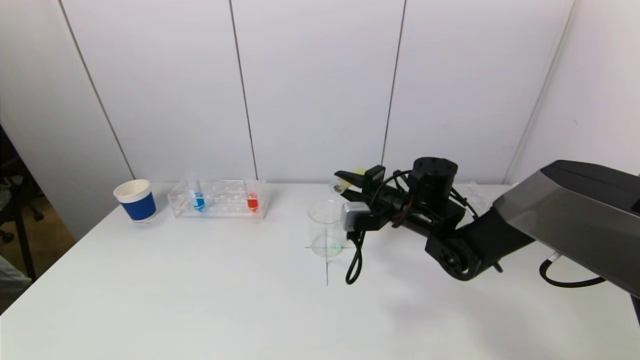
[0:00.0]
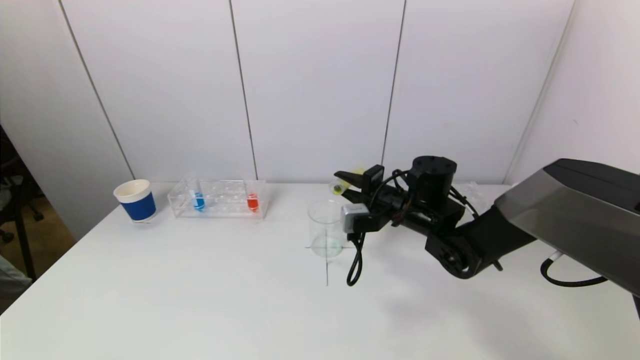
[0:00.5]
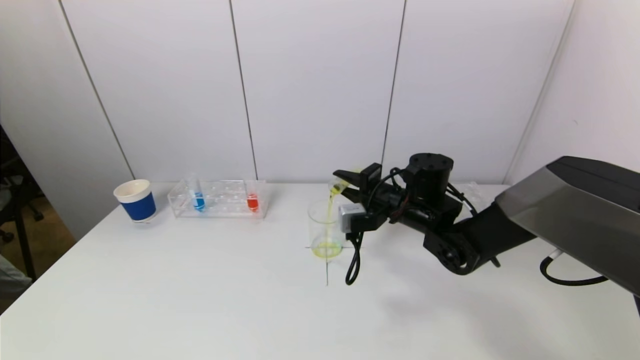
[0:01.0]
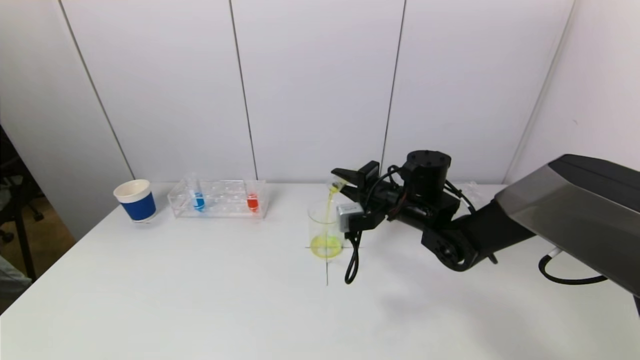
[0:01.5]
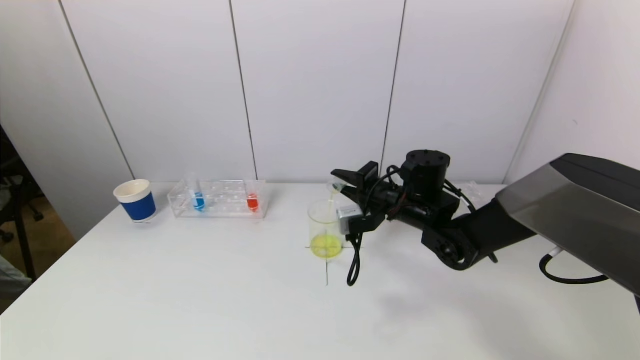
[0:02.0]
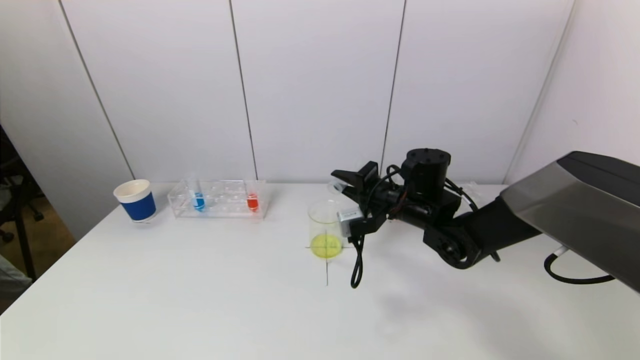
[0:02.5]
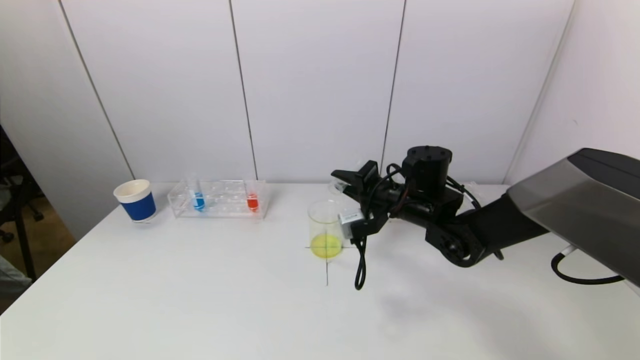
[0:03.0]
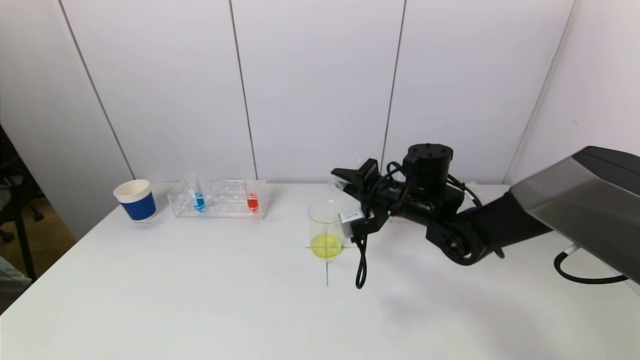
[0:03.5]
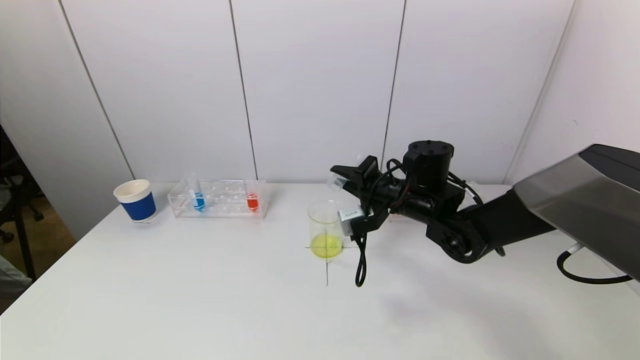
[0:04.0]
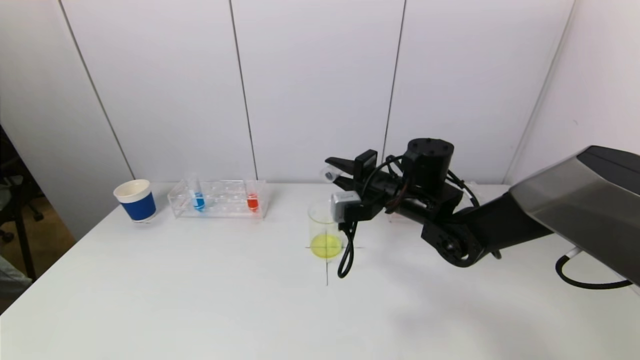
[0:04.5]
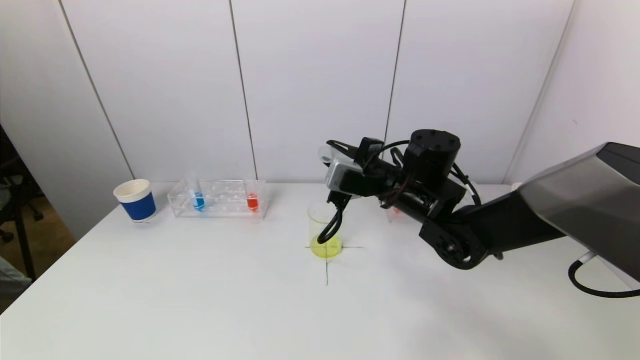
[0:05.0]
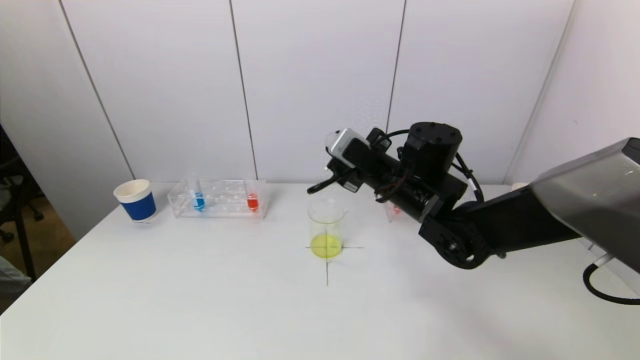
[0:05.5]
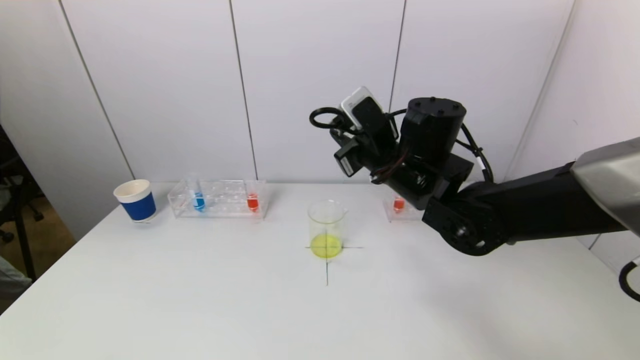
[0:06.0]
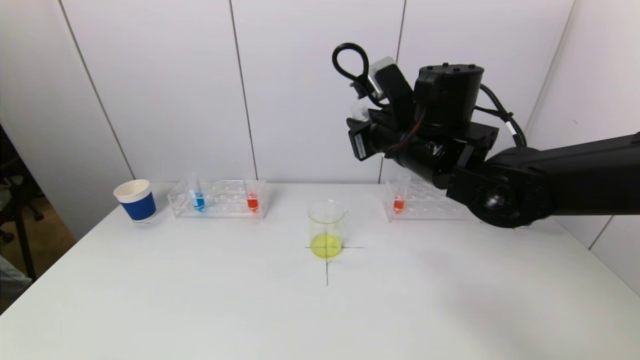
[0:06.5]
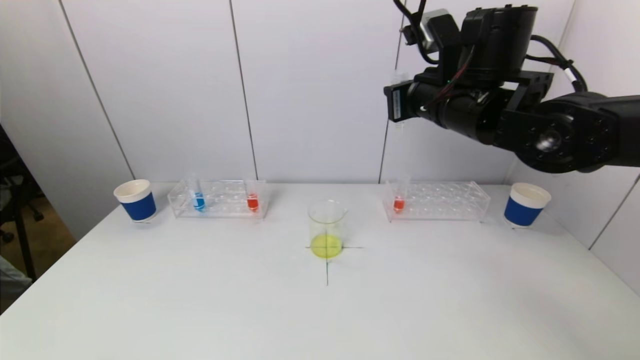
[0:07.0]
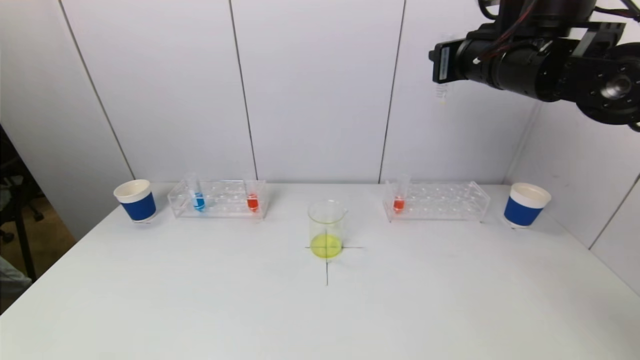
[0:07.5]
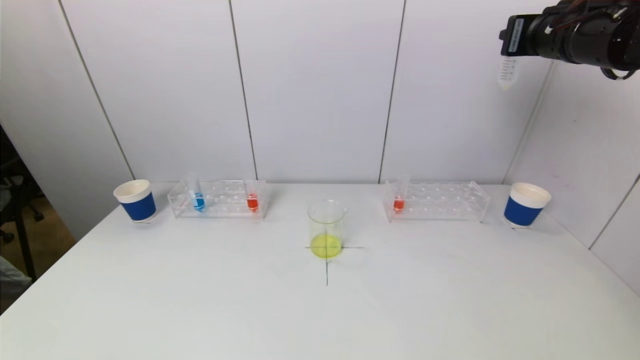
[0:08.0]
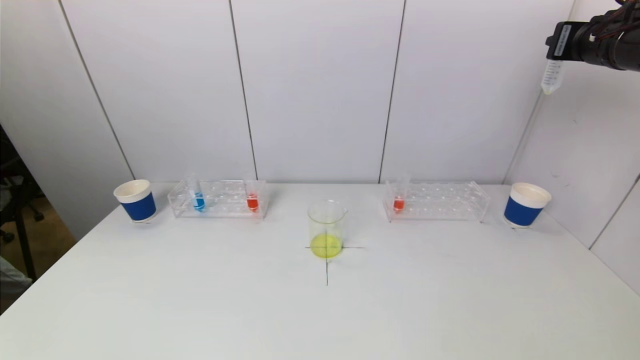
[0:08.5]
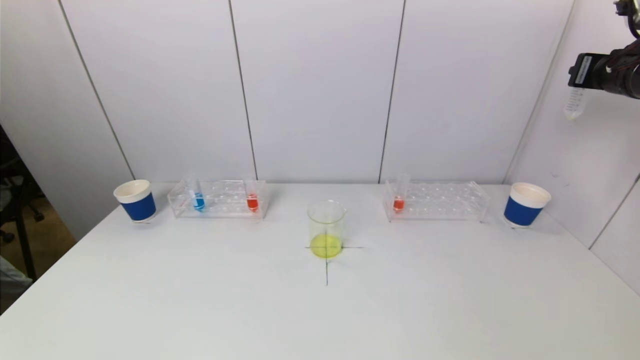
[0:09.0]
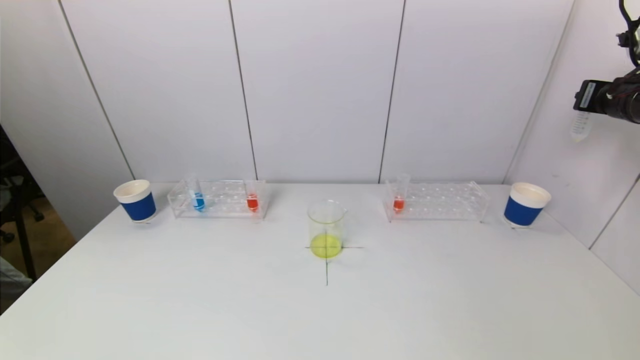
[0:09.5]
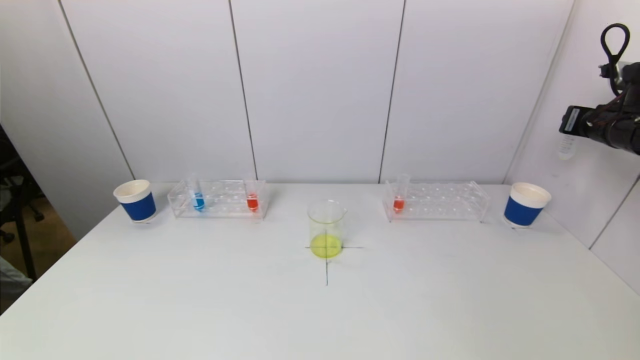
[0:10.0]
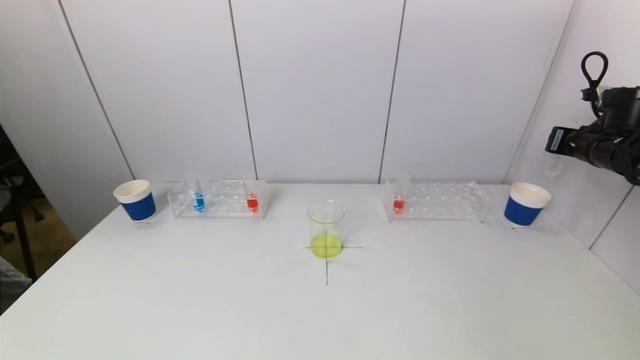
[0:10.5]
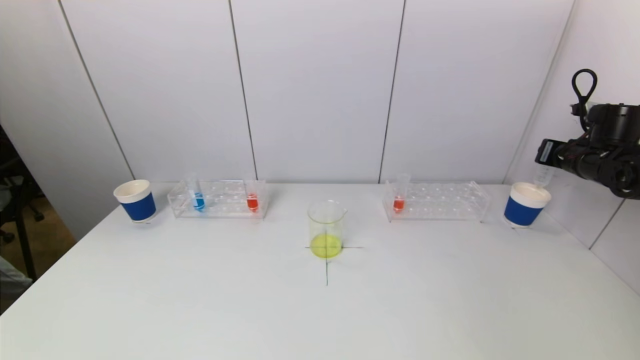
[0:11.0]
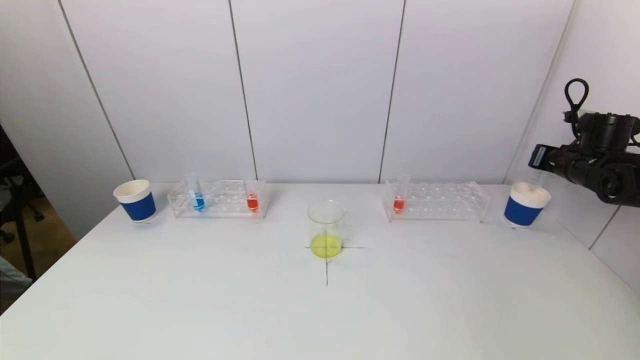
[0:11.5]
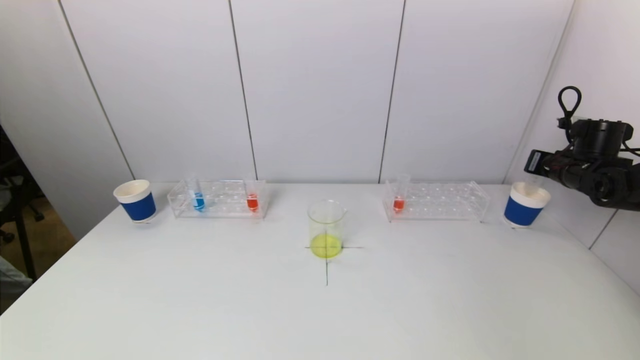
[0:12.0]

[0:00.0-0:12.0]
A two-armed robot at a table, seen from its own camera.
Task of the whole recording: pick up a test tube with pigment on left test tube rack and a test tube with pigment on right test tube rack by grippers and pour them into the beaker.
Step, 0:00.0 to 0:04.0: Pour the yellow reagent into the graduated cylinder with the right gripper.
0:00.0 to 0:02.0: The grippers move only a little.
0:02.0 to 0:04.0: The grippers make only small movements.
0:04.0 to 0:06.0: The right gripper is displaced upward by about 10 cm.
0:06.0 to 0:08.0: The right gripper shifts about 25 cm to the right and upward.
0:08.0 to 0:10.0: The right gripper travels to the right and downward by approximately 20 cm.
0:10.0 to 0:12.0: The right gripper moves downward, roughly 10 cm.

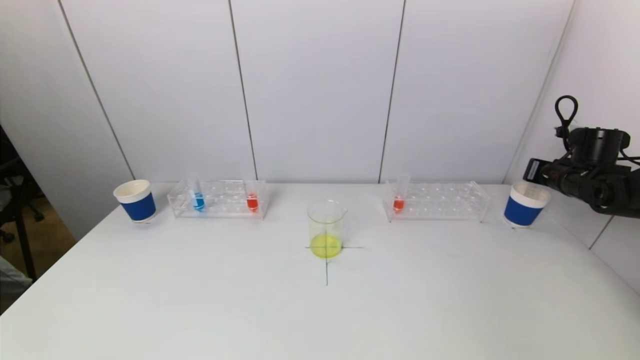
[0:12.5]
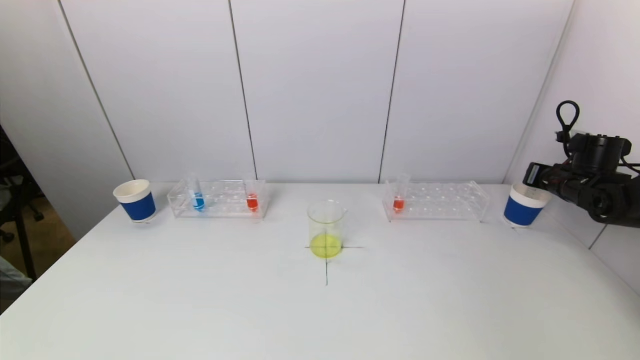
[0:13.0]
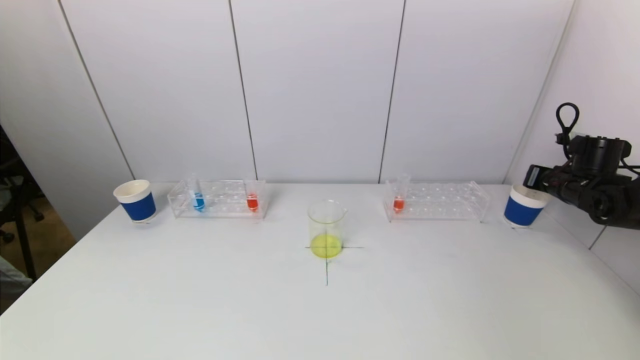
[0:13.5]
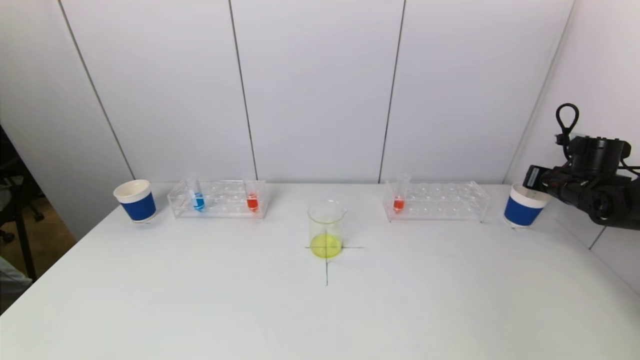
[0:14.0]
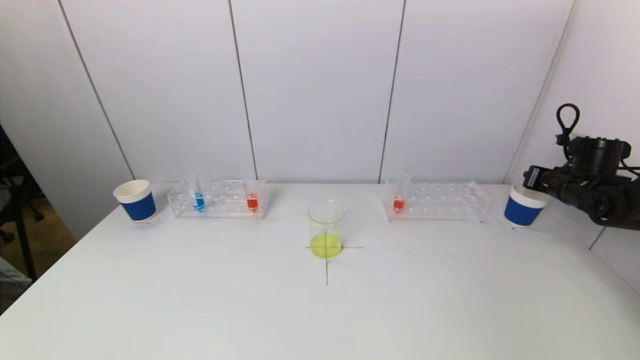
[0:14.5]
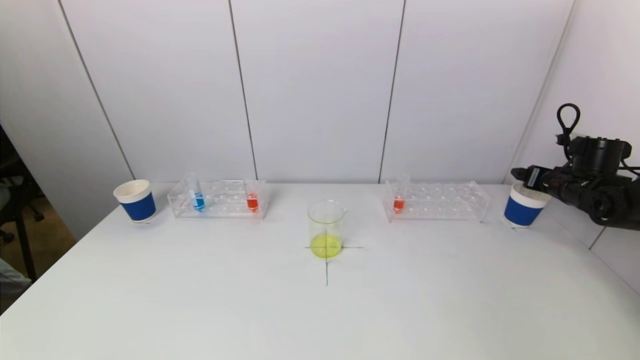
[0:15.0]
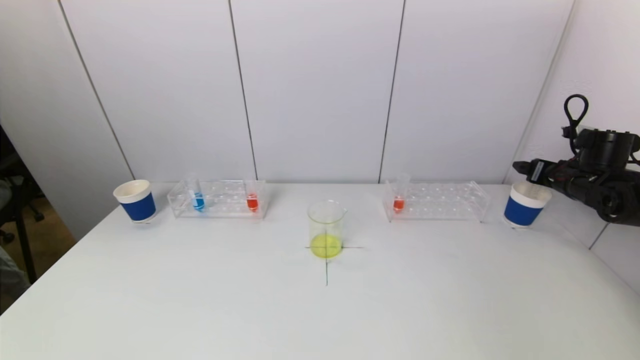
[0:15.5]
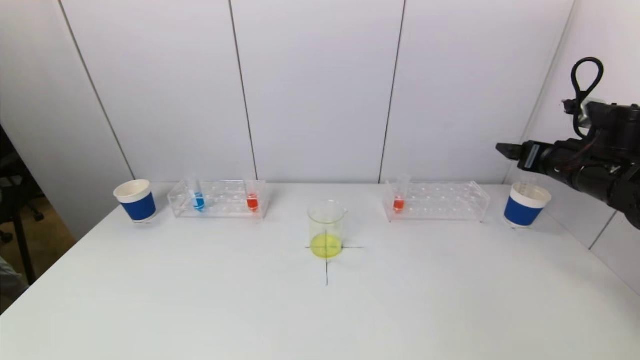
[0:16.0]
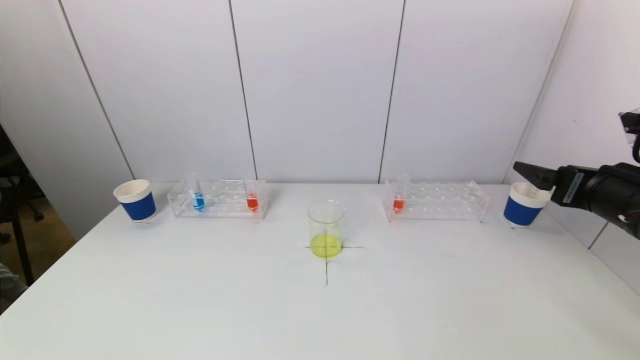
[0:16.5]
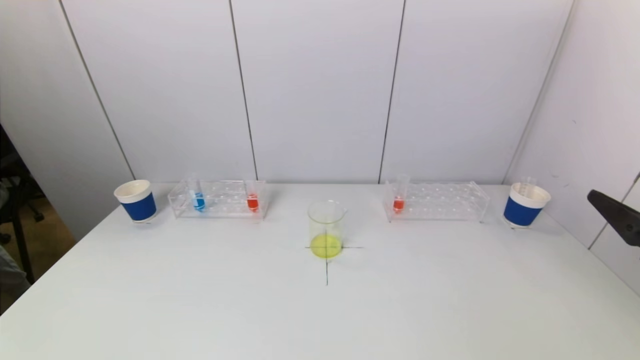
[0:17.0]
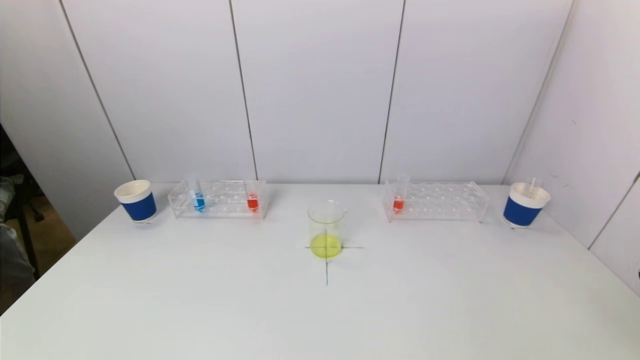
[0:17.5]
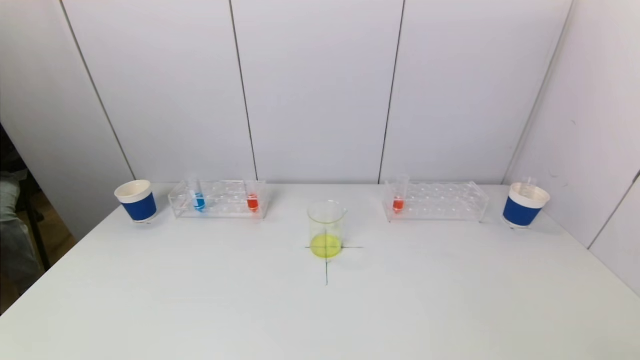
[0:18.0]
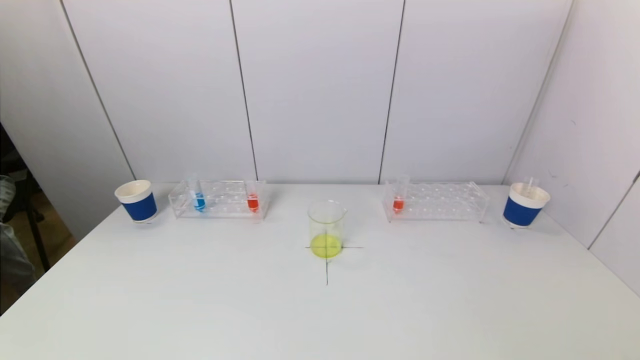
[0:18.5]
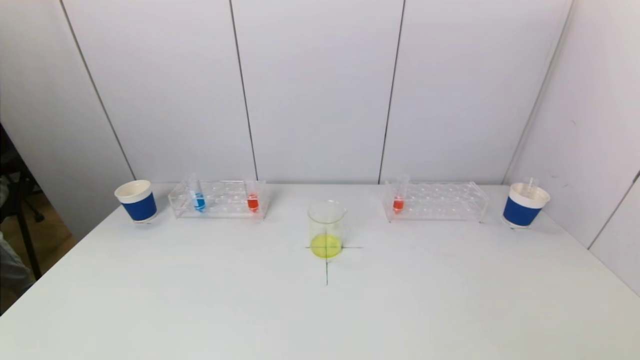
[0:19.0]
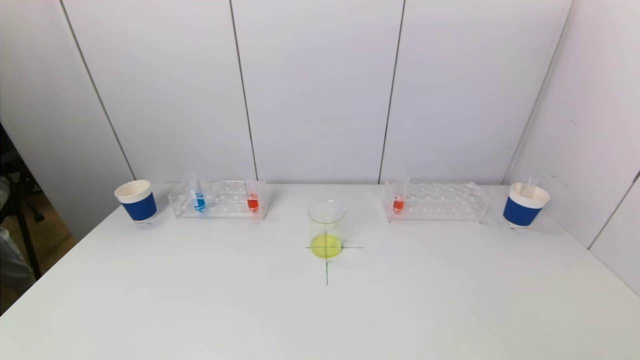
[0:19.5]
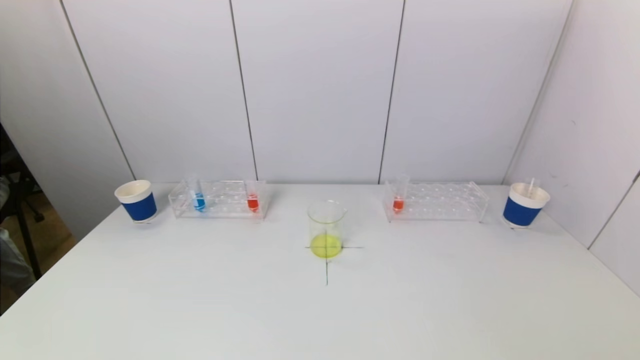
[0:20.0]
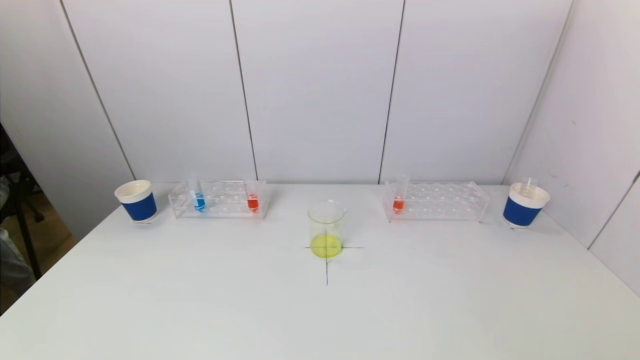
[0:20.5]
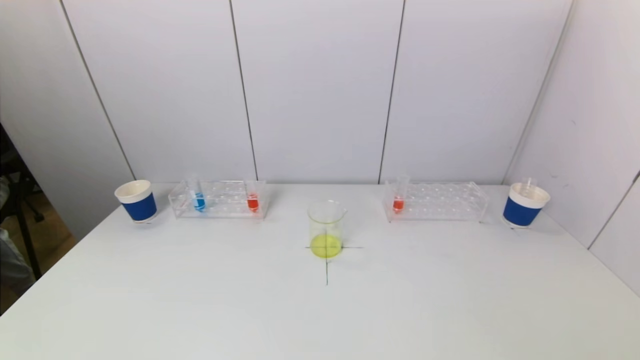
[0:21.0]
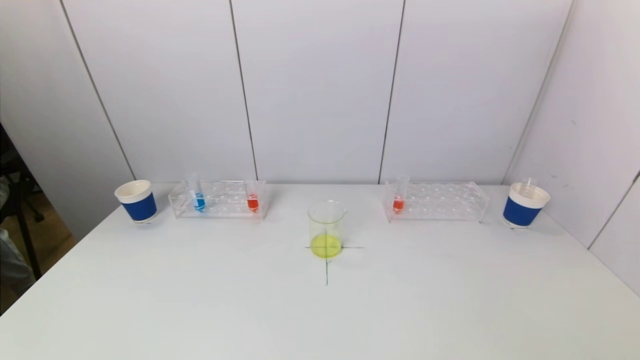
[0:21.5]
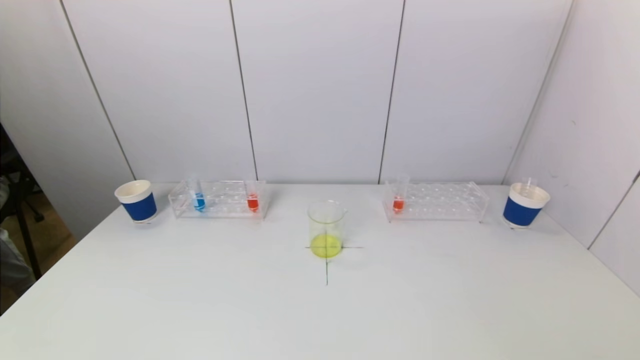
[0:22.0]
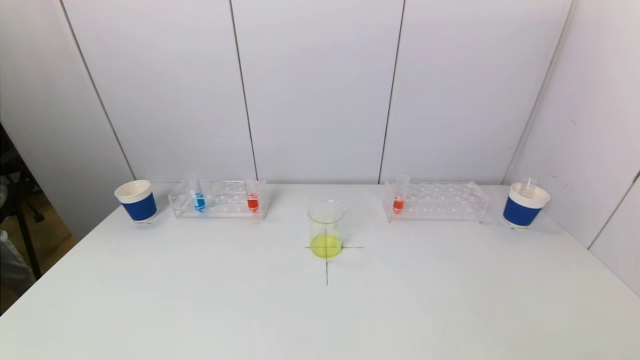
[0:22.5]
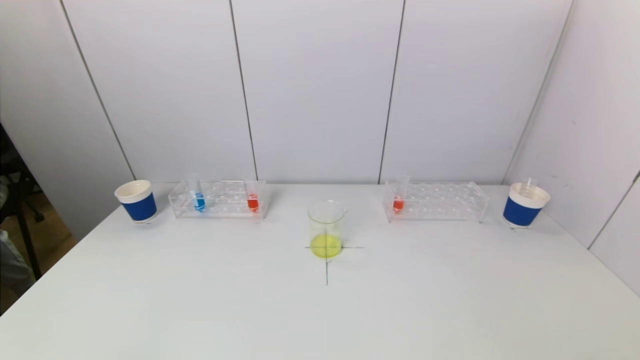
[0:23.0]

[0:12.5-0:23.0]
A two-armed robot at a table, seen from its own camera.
Task of the whole recording: pick up a test tube with pigment on left test tube rack and a test tube with pigment on right test tube rack by grippers and pour them into the beaker.
Step, 0:12.5 to 0:15.0: Place the test tube into the paper cup with the right gripper.
0:12.5 to 0:14.5: There are only small adjustments of the grippers.
0:14.5 to 0:16.5: The right gripper is displaced backward, to the left and upward by about 25 cm, and opens.
0:16.5 to 0:19.0: The right gripper shifts approximately 30 cm backward and downward.
0:19.0 to 0:21.0: The two grippers keep their place.
